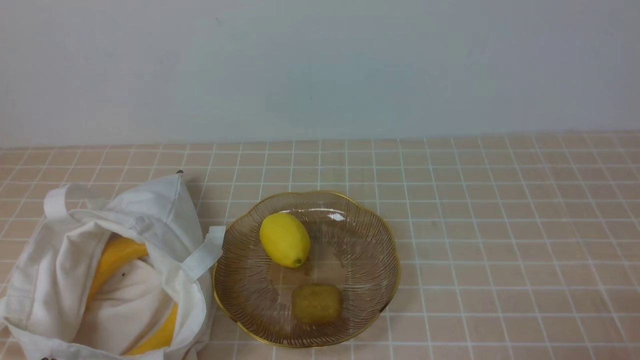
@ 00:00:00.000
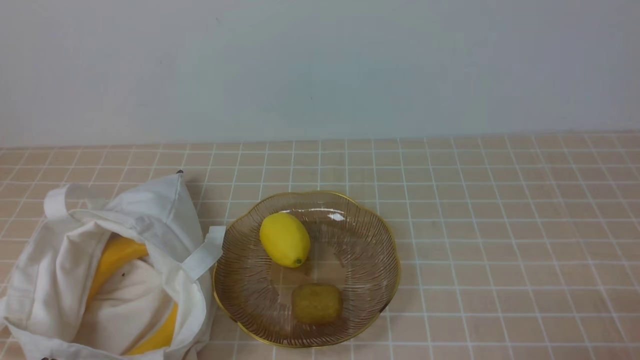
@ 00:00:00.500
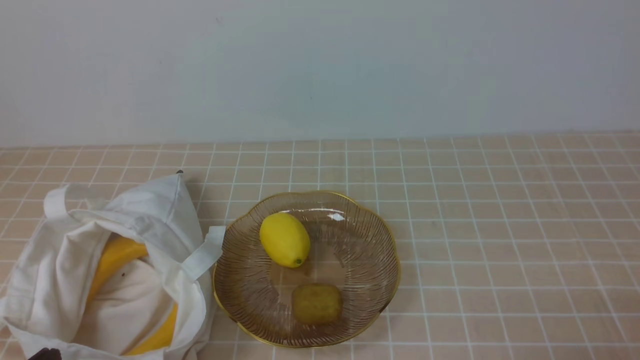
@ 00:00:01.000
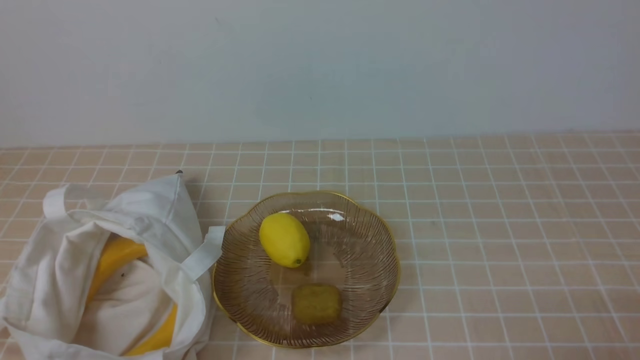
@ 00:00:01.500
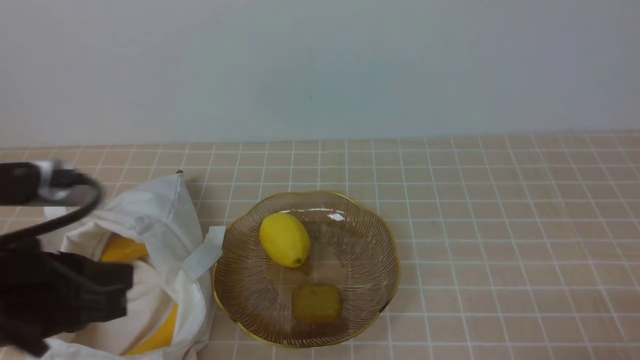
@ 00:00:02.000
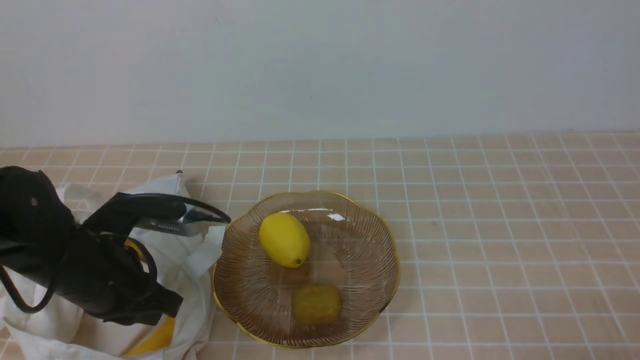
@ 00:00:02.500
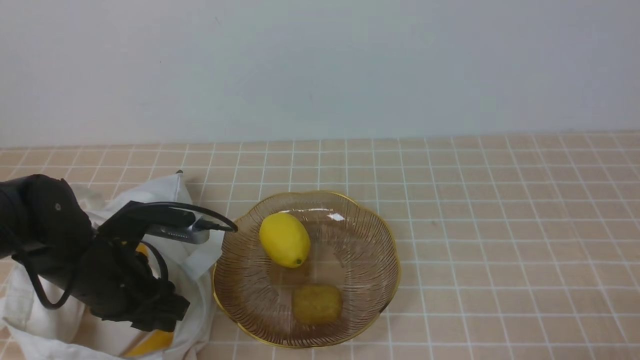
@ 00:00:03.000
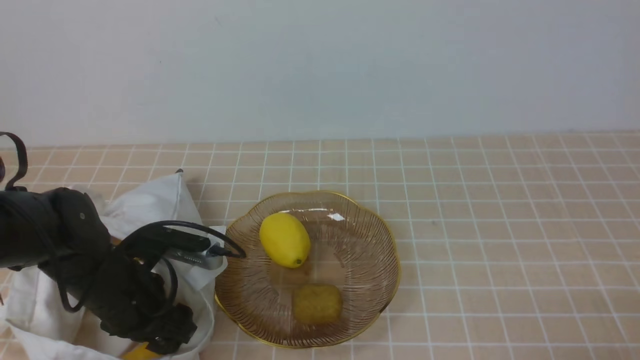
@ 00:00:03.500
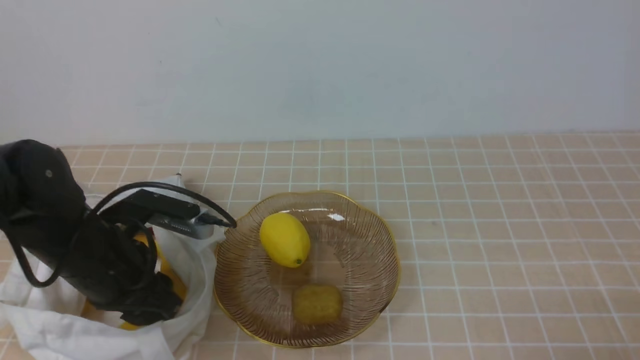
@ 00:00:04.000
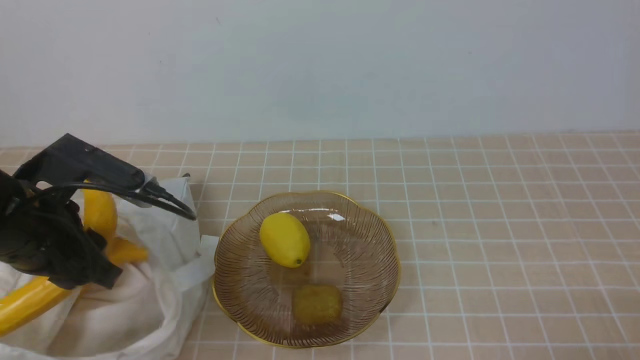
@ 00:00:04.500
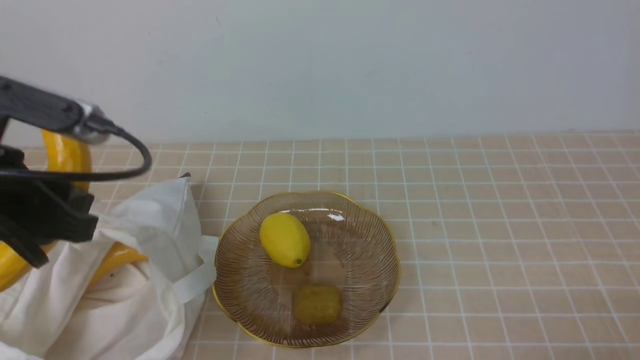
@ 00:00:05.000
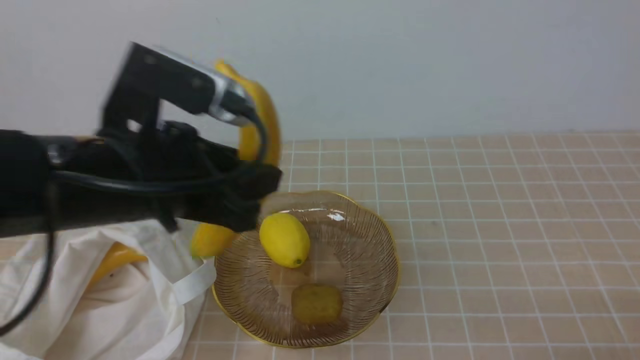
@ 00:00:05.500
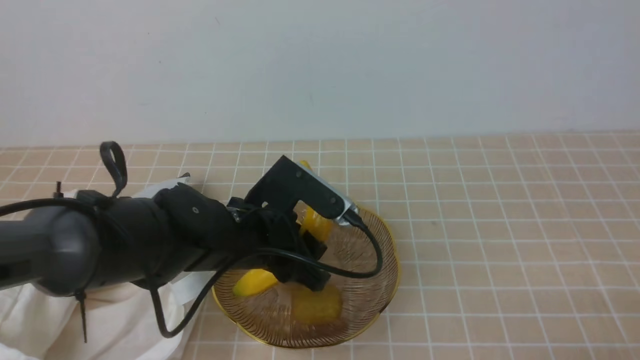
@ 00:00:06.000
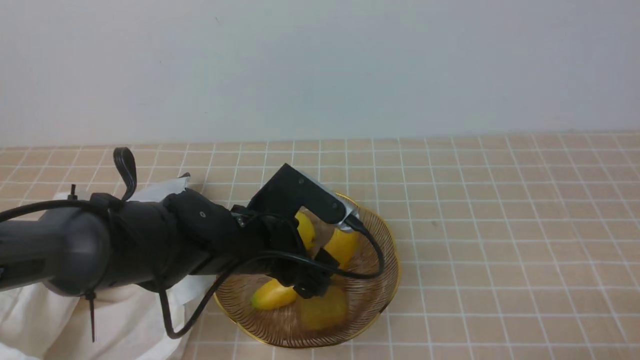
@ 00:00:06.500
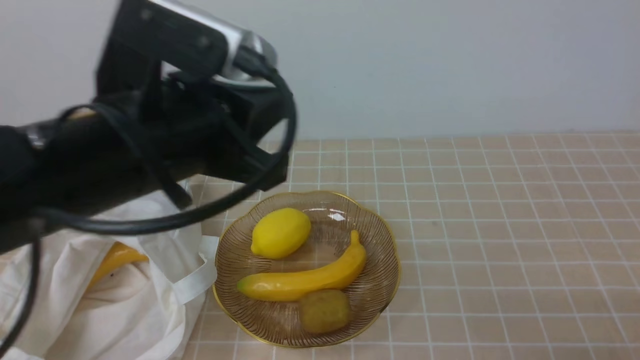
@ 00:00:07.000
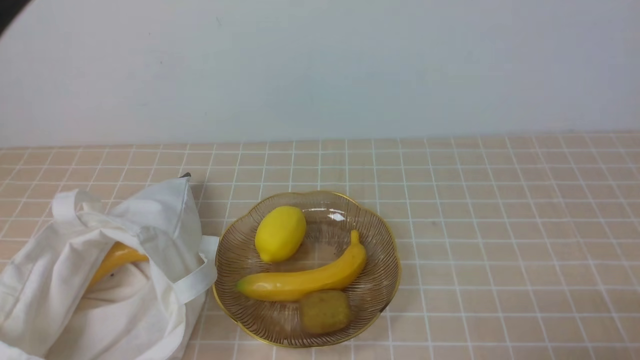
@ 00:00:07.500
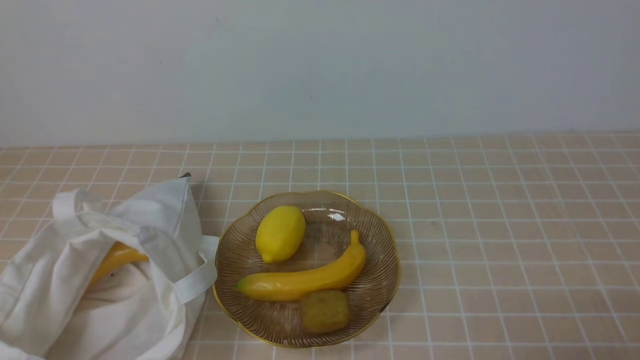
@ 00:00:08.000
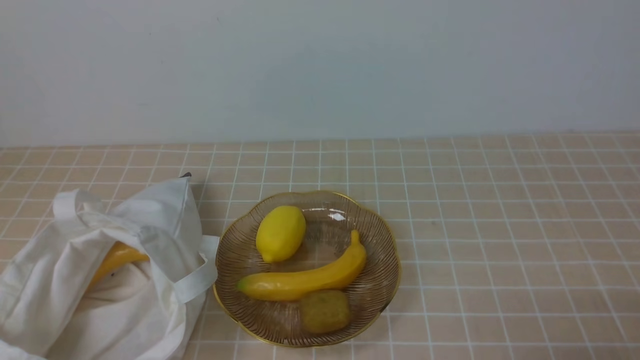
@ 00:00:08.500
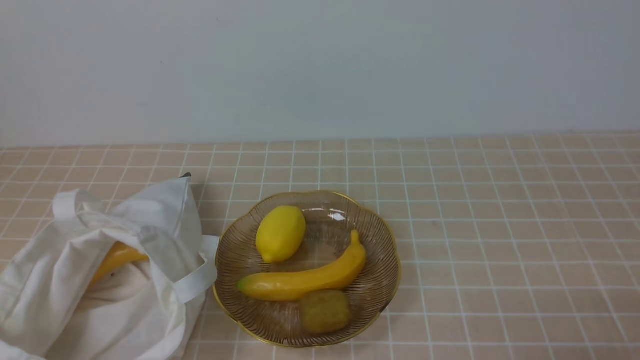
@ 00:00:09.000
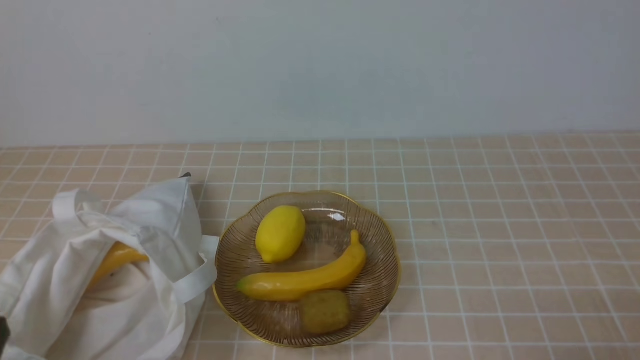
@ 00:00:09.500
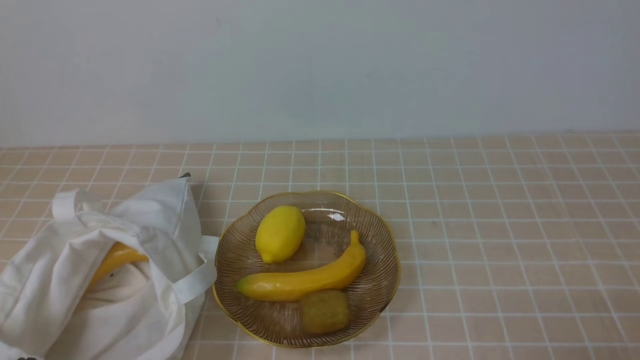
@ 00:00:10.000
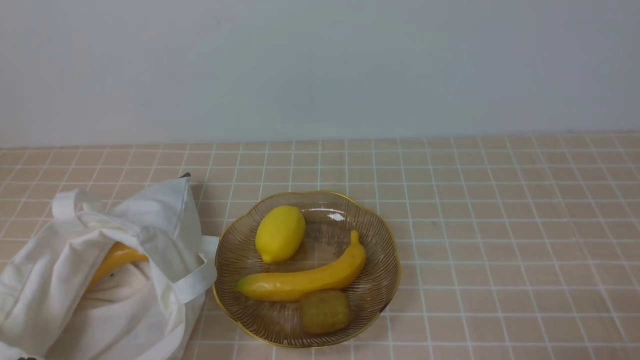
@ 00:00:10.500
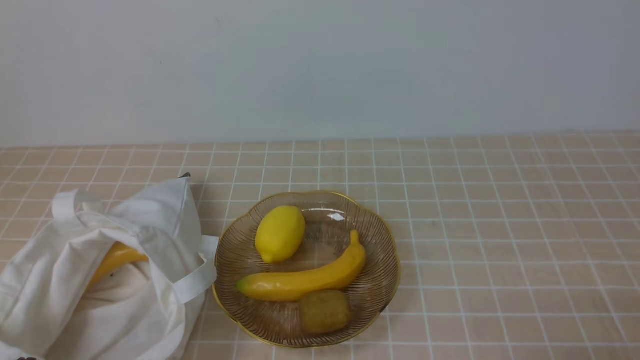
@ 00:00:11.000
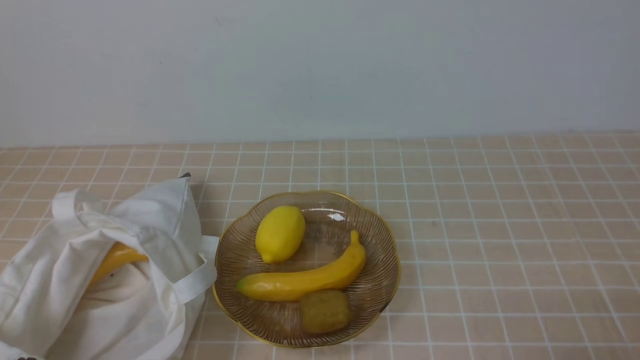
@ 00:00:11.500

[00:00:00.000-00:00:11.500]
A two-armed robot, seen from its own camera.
Step, 00:00:00.000 to 00:00:04.000: use the left arm to grab a banana from the bag.
Step, 00:00:05.000 to 00:00:06.000: use the left arm to put the banana into the empty plate on the right.
00:00:02.000 to 00:00:04.000: The left gripper moves forward and downward, about 20 cm, and opens.
00:00:04.000 to 00:00:06.000: The left gripper is displaced to the right by some 15 cm.
00:00:06.000 to 00:00:07.500: The left gripper heads upward, backward and to the left, covering roughly 30 cm, and closes.
00:00:07.500 to 00:00:09.500: The left gripper travels downward and to the left by about 20 cm.
